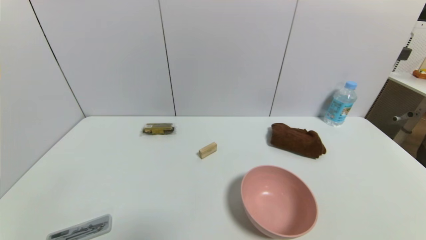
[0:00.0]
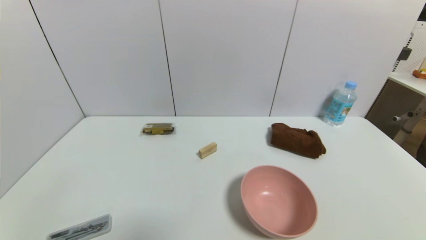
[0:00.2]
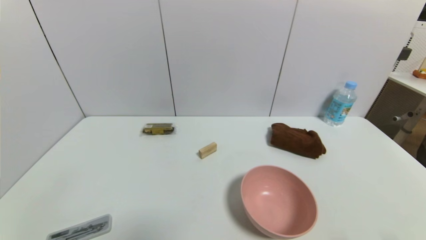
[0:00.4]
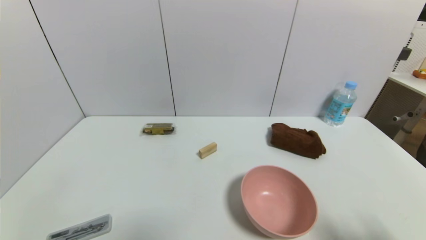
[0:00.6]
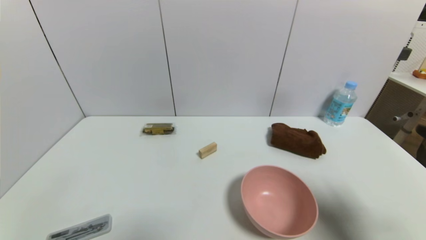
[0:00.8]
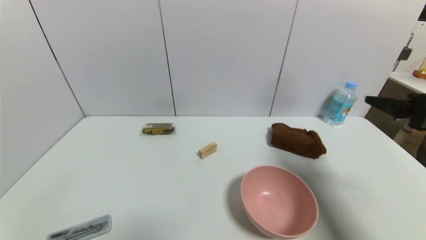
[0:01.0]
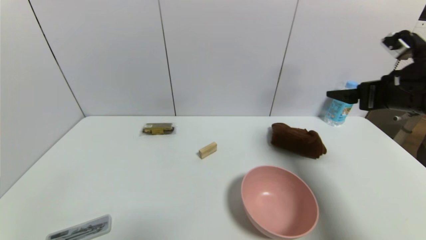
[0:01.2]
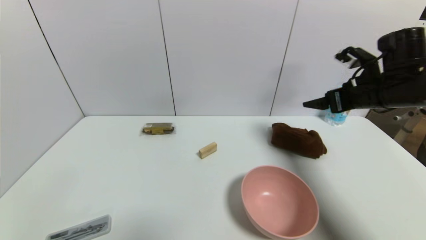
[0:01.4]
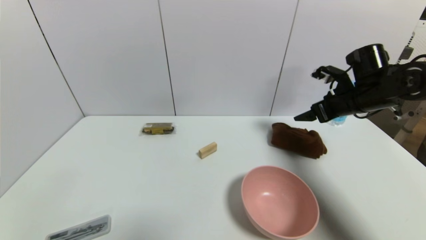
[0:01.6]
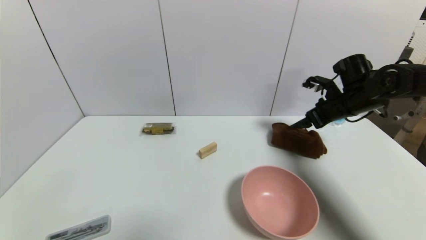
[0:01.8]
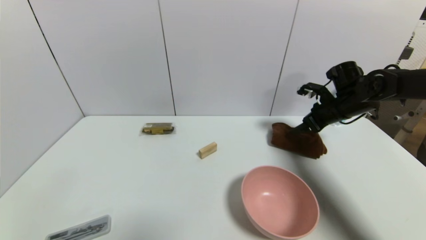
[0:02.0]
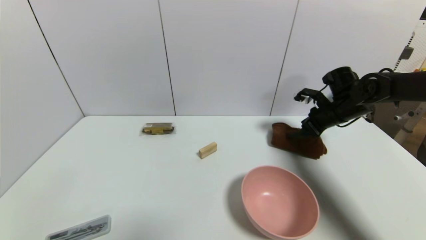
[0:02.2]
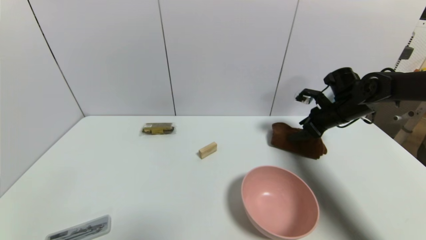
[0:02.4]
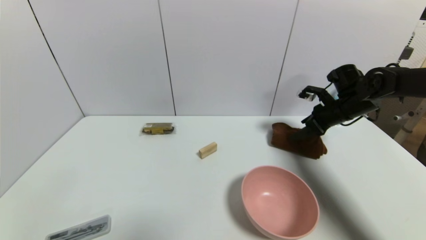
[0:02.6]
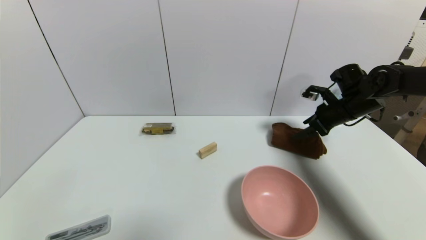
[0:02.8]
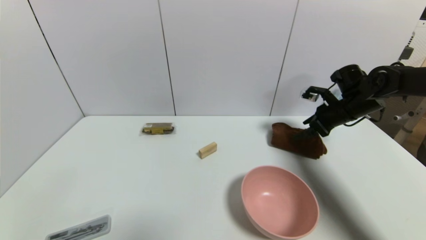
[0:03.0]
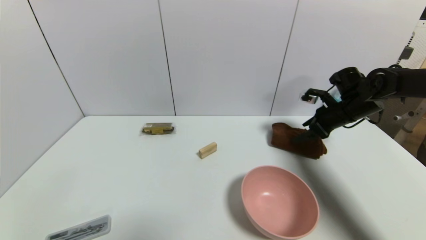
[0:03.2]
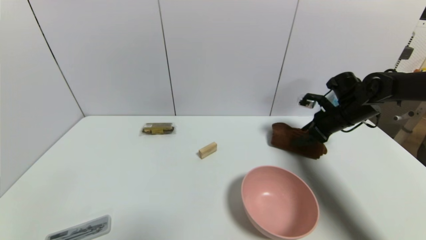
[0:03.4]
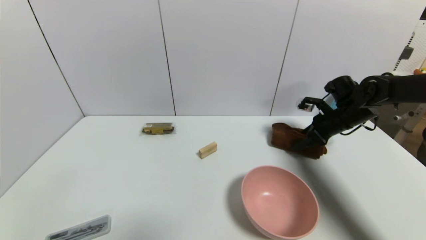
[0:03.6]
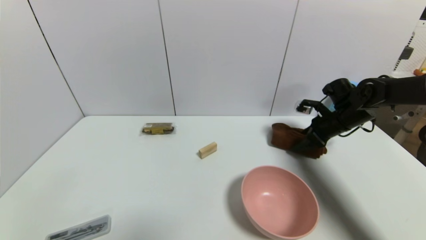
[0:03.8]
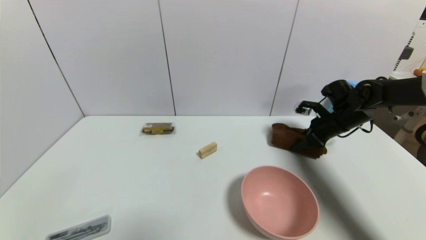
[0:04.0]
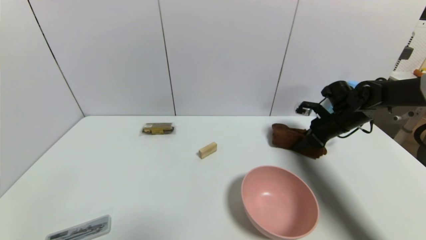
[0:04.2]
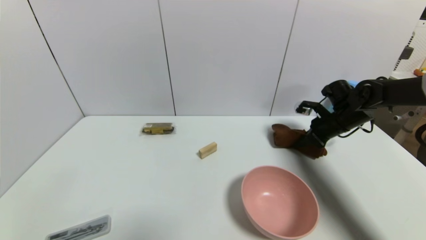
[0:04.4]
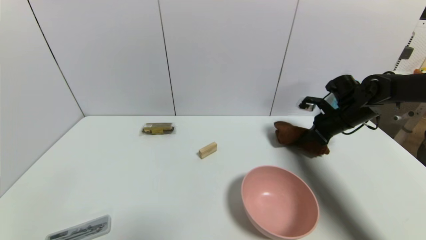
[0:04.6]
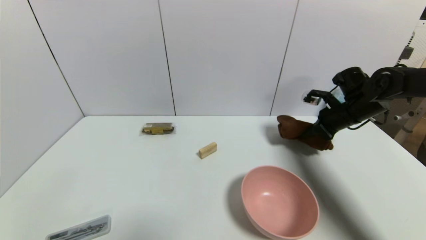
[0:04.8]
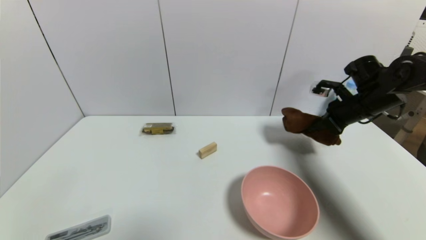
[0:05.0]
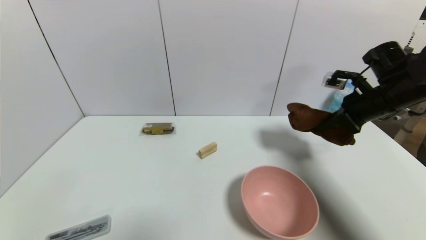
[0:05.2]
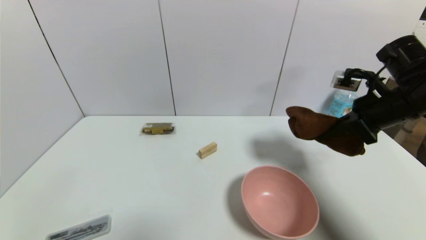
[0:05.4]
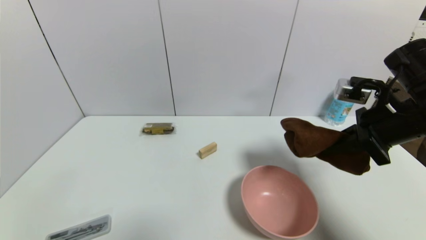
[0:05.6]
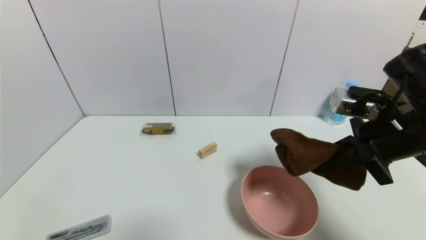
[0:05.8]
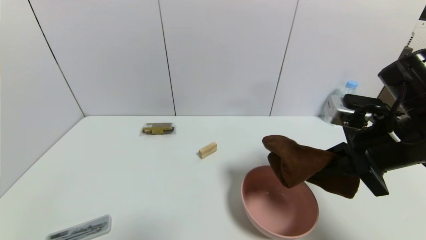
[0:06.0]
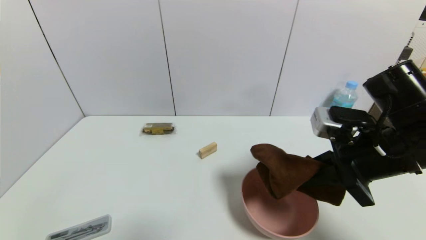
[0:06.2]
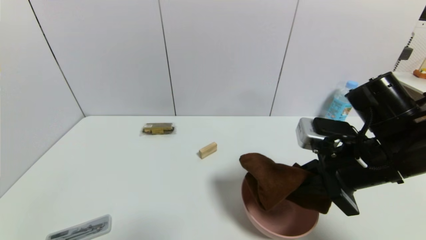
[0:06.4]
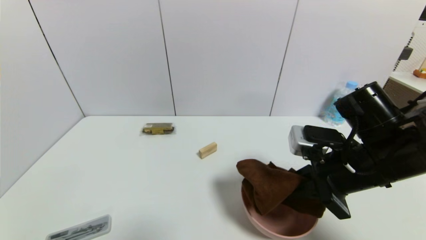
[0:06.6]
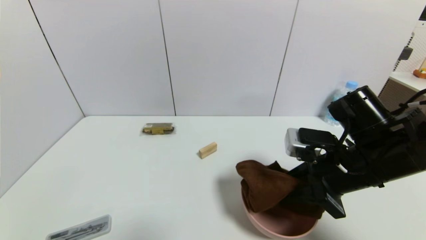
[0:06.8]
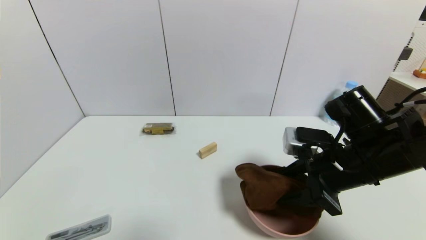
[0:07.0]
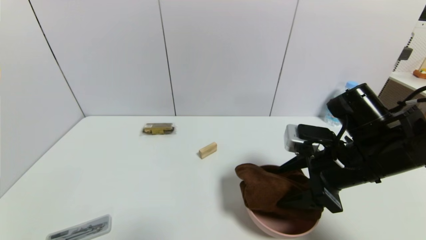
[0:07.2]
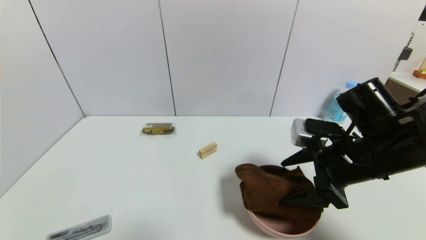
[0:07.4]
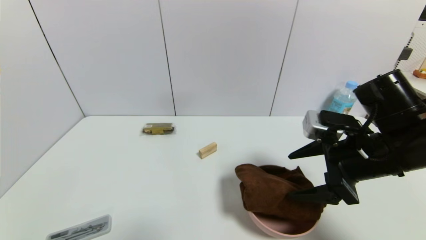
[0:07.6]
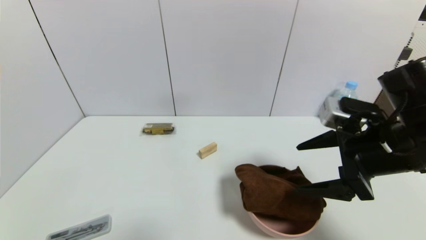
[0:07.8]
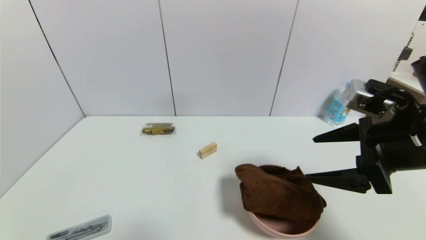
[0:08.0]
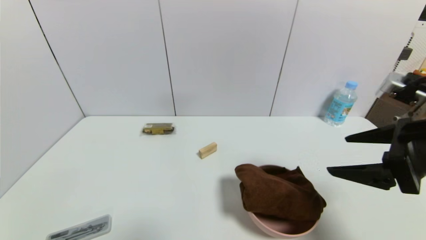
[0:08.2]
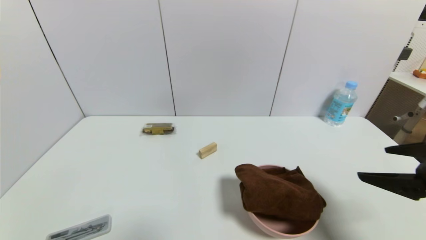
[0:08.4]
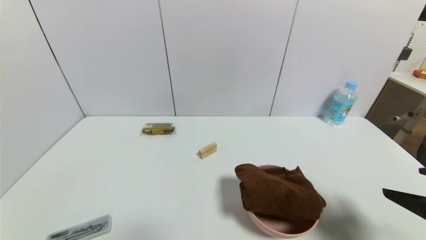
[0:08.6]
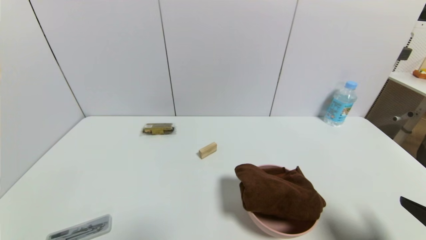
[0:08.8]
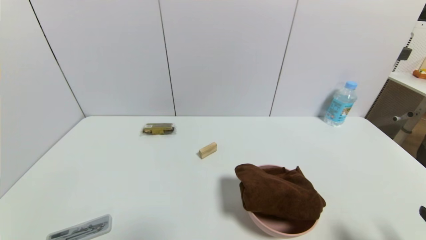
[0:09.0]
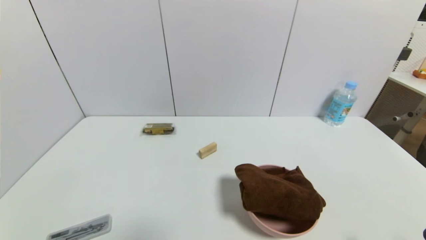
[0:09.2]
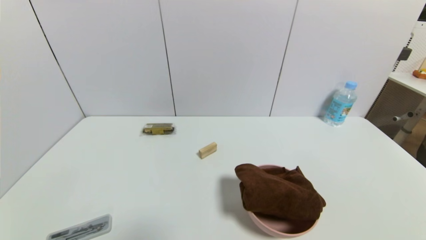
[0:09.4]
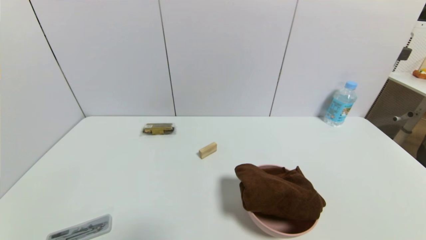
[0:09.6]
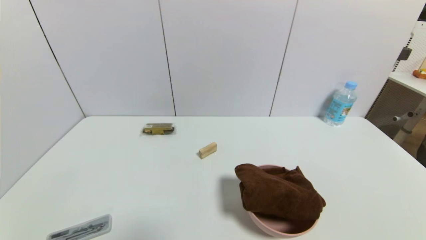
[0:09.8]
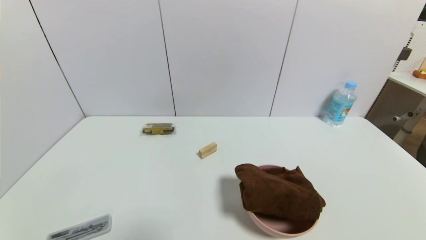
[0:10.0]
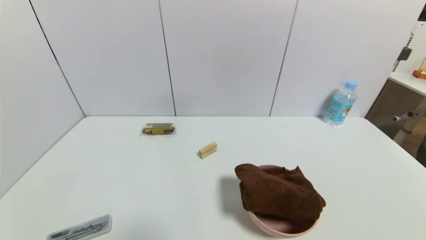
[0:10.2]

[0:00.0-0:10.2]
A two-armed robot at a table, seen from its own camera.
Task of the whole recording: use a gripper to pick the target object and place on the pink bowl.
Step, 0:00.0 to 0:04.2: Grasp the brown towel with the right gripper.
Step, 0:04.4 to 0:07.4: Place the brown towel on the pink bowl with the right gripper.
0:00.0 to 0:01.4: The right gripper goes some 40 cm forward and upward.
0:01.4 to 0:03.0: The right gripper heads forward and downward, covering some 10 cm.
0:03.0 to 0:04.4: The right gripper closes its fingers.
0:04.4 to 0:05.8: The right gripper is displaced backward and upward by about 20 cm.
0:05.8 to 0:07.2: The right gripper travels downward and to the left by approximately 5 cm, and opens.
0:07.2 to 0:08.8: The right gripper moves backward and to the right, roughly 20 cm.
0:08.8 to 0:10.2: The right gripper goes about 15 cm downward and backward.
